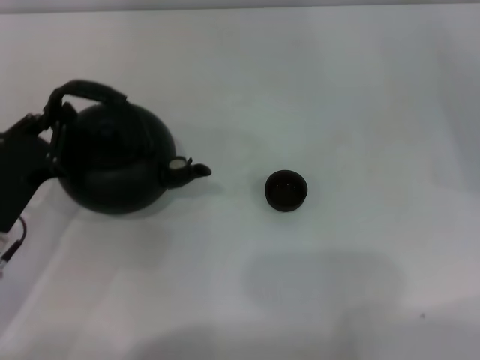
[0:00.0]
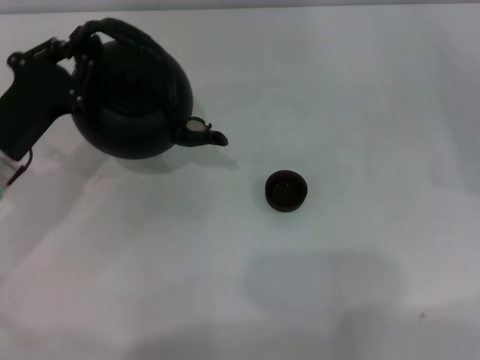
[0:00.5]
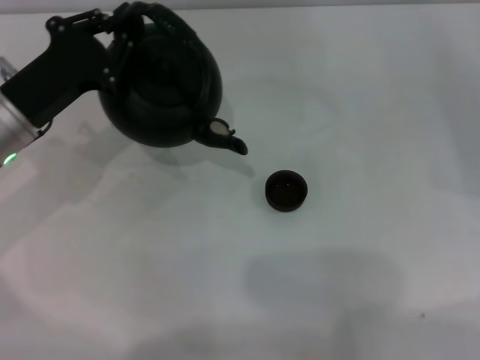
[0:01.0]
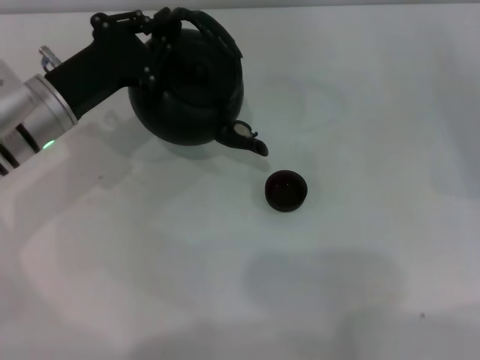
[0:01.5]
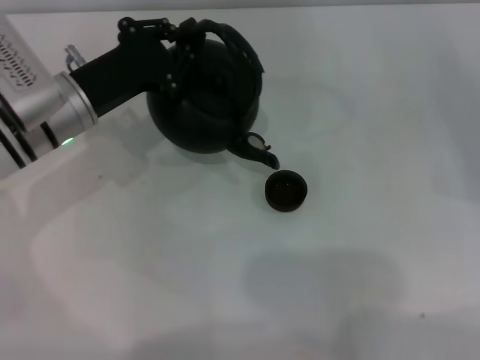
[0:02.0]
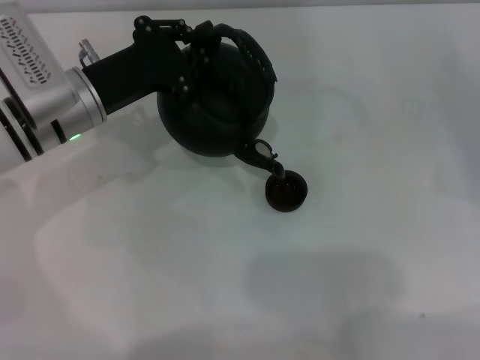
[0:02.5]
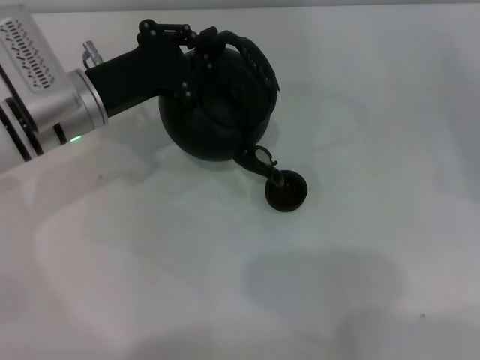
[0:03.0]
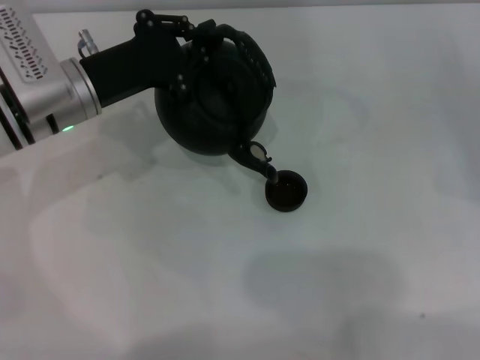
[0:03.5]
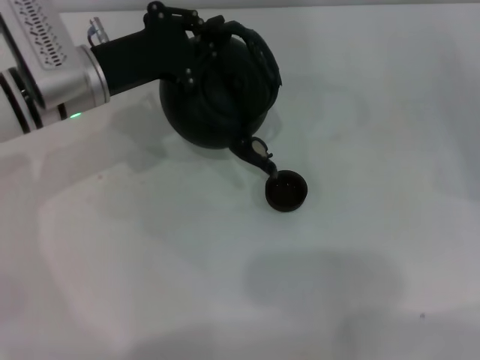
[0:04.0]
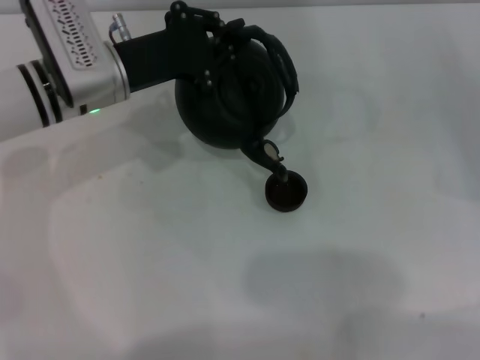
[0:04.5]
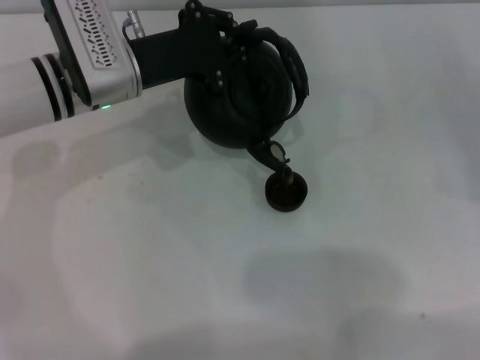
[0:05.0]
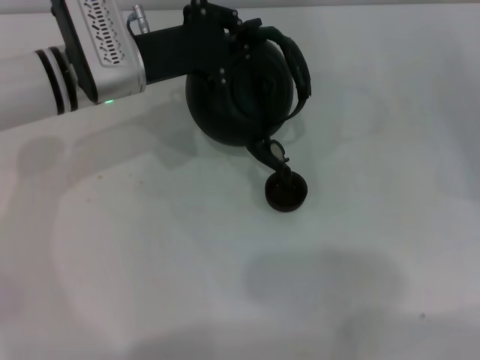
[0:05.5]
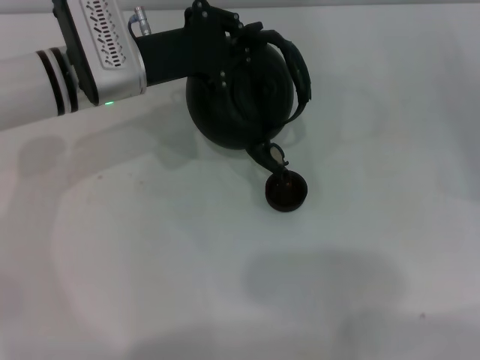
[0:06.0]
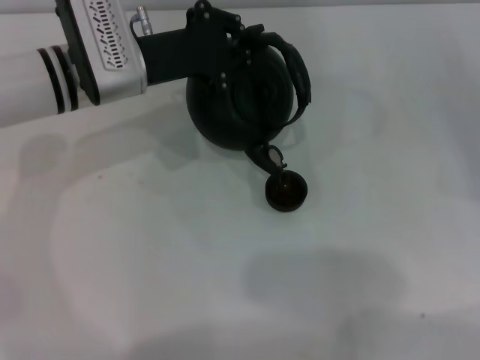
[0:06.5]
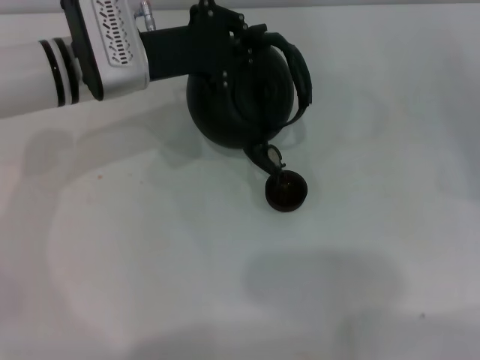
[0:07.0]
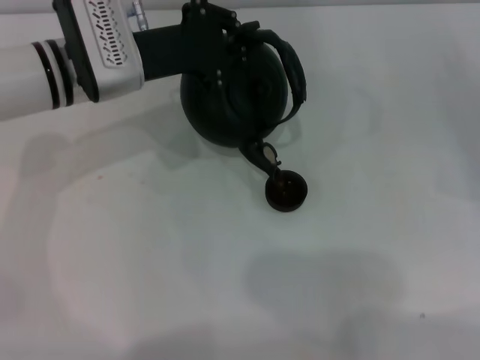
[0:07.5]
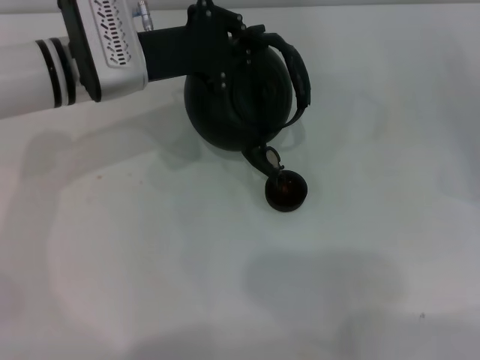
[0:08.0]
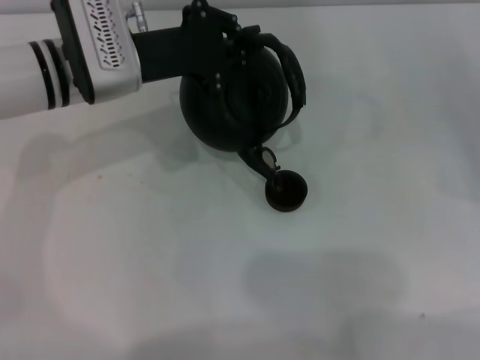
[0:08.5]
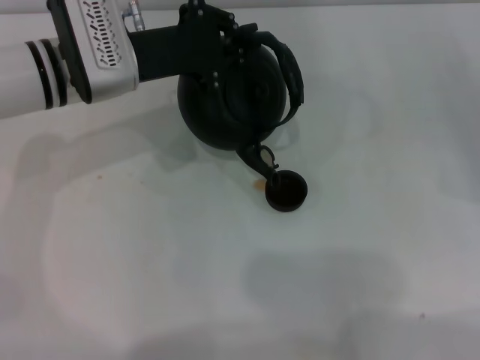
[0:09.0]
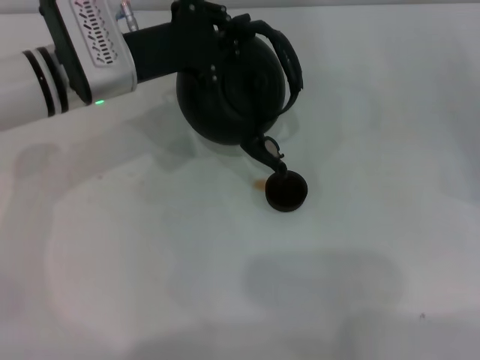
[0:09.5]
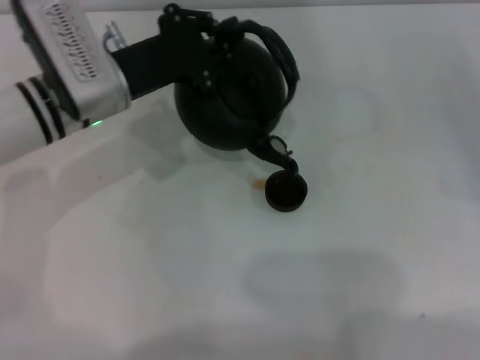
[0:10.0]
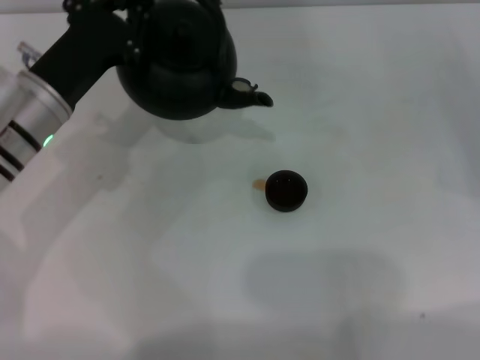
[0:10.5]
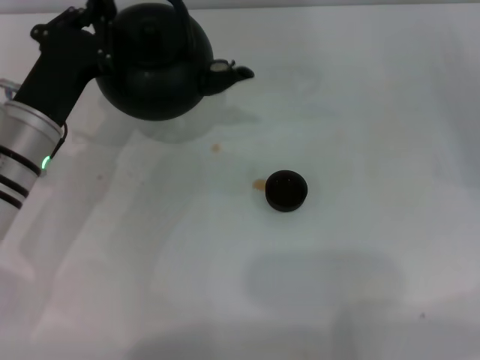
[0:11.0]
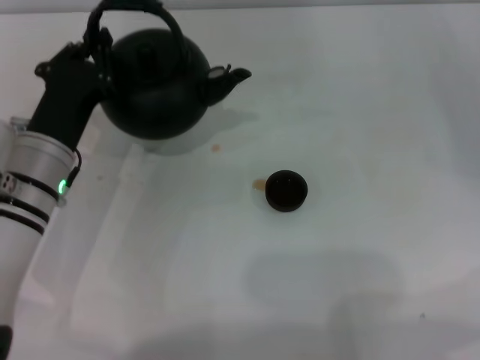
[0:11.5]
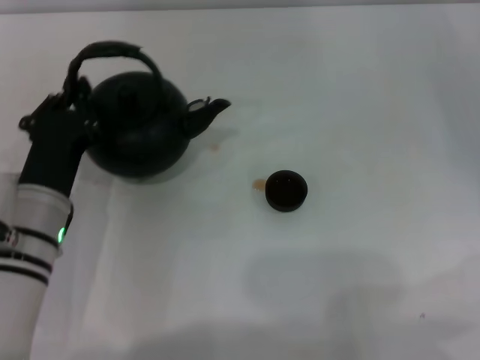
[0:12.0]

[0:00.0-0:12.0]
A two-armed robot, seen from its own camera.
Task of the whole recording: Grasp the handle of the teapot with one hand and pour tea into the teacup.
Step, 0:00.5 to 0:10.0: Pour tea into the teacup with the left gripper.
0:00.0 to 0:02.0: The left gripper moves forward, to the right and upward, some 15 cm.
0:02.0 to 0:04.0: The grippers move only a little.
0:04.0 to 0:06.0: The grippers move only a little.
0:06.0 to 0:08.0: Both grippers stay put.
0:08.0 to 0:10.0: The grippers stay close to where they were, moving slightly.
0:10.0 to 0:12.0: The right gripper moves roughly 5 cm. The left gripper heads backward and downward, covering approximately 15 cm.

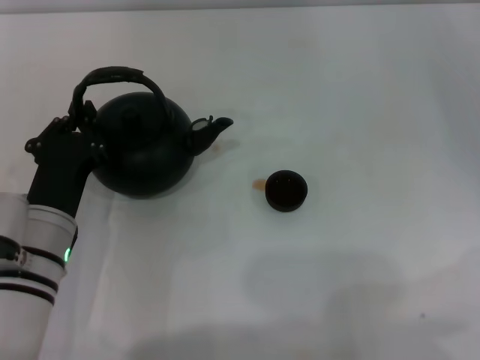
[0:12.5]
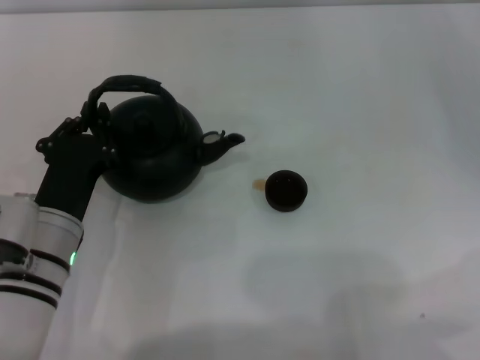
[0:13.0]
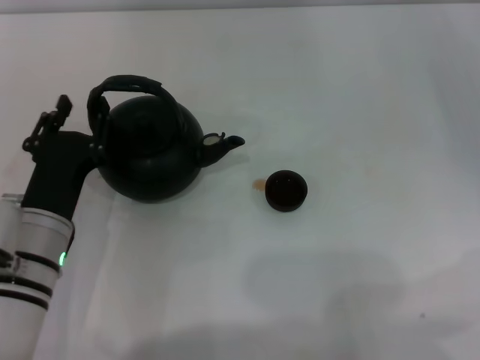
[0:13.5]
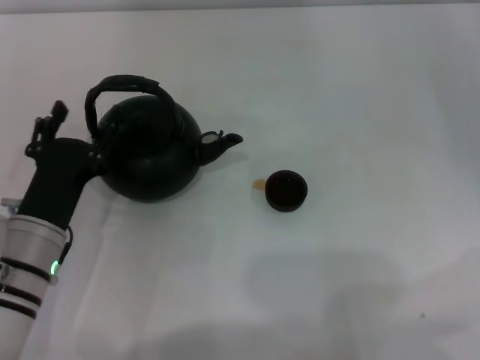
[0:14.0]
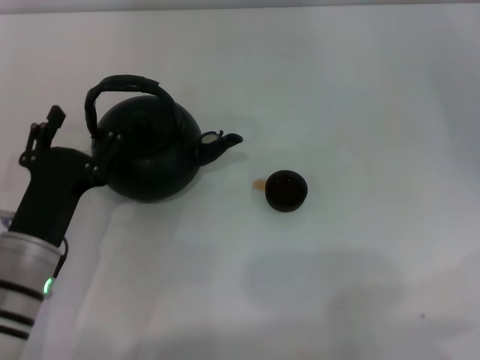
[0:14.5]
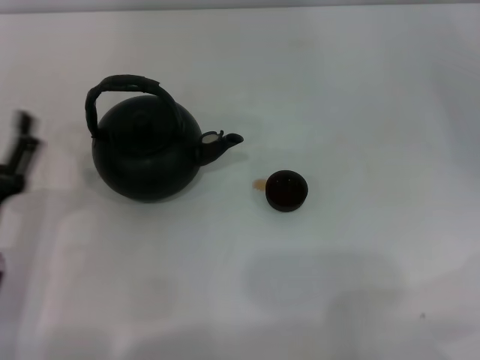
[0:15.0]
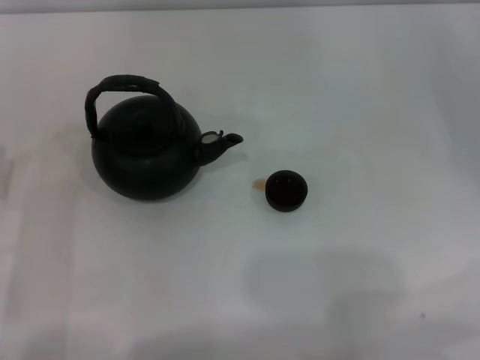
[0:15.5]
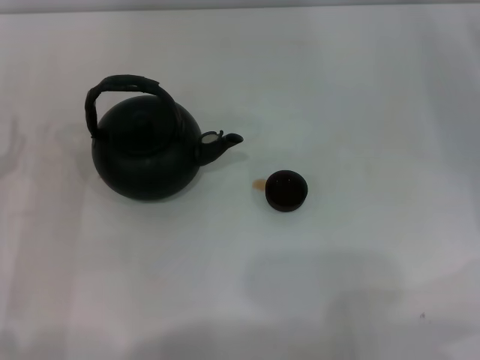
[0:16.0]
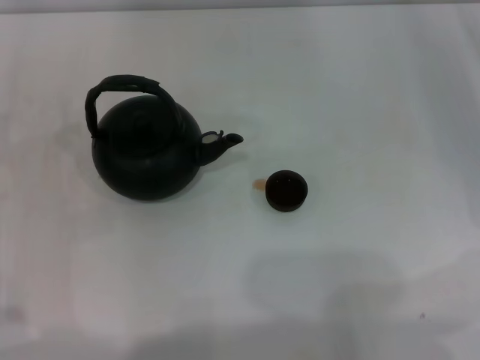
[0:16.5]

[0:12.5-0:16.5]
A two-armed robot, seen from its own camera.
Task of the whole recording: Grasp the handle of the teapot with one hand and pour tea into the teacup.
Step, 0:12.5 to 0:14.5: Put down the teapot with the left gripper.
0:12.5 to 0:14.5: The left gripper opens up.
0:14.5 to 0:16.5: The left gripper moves to the left and forward, some 10 cm.

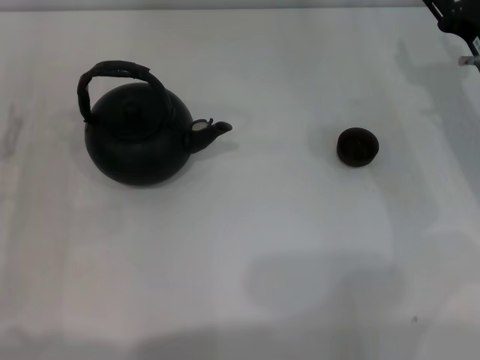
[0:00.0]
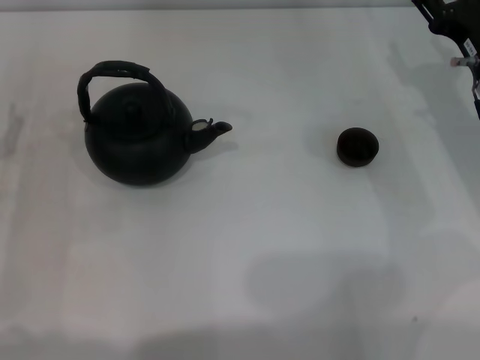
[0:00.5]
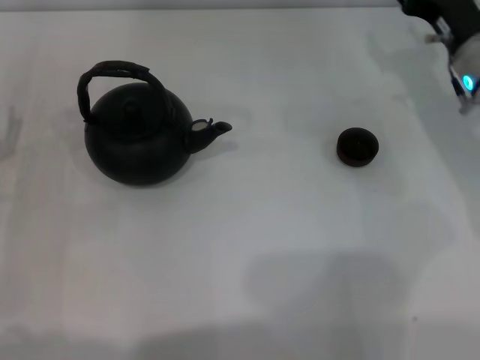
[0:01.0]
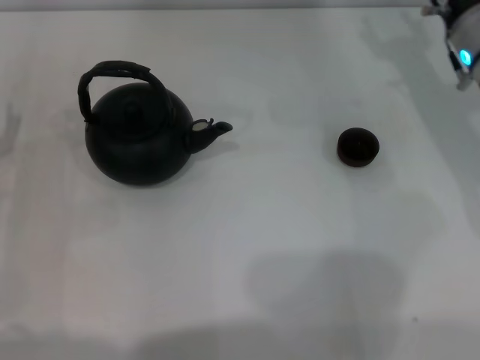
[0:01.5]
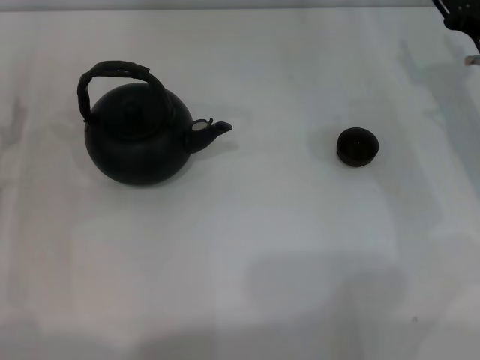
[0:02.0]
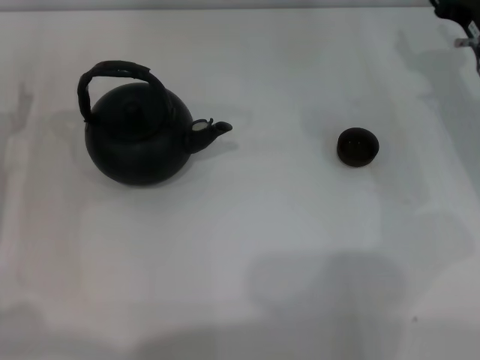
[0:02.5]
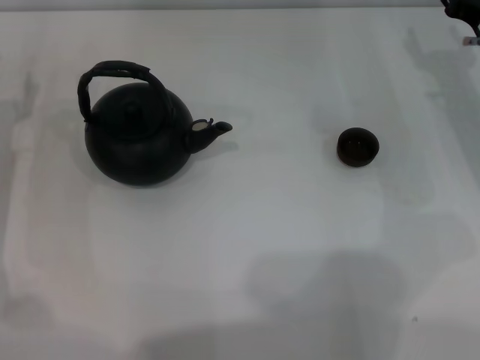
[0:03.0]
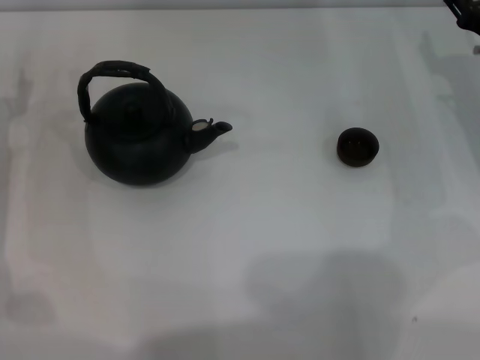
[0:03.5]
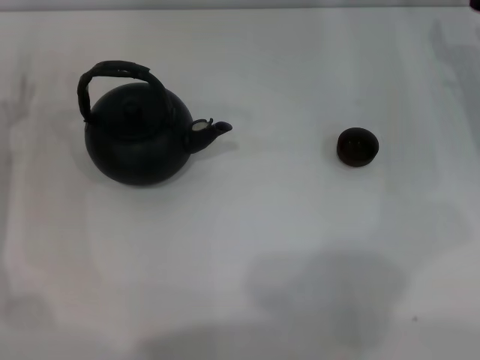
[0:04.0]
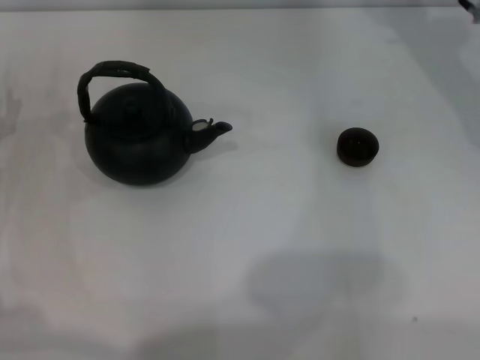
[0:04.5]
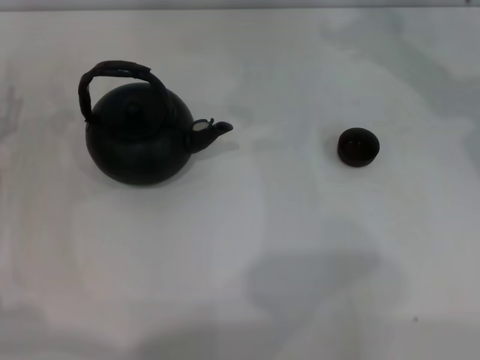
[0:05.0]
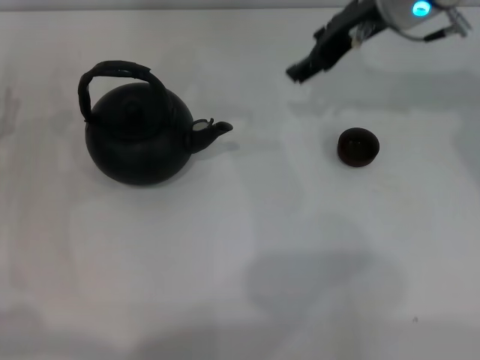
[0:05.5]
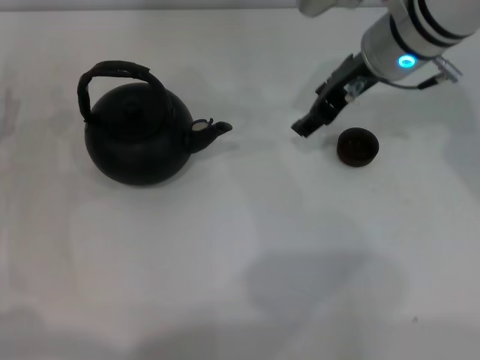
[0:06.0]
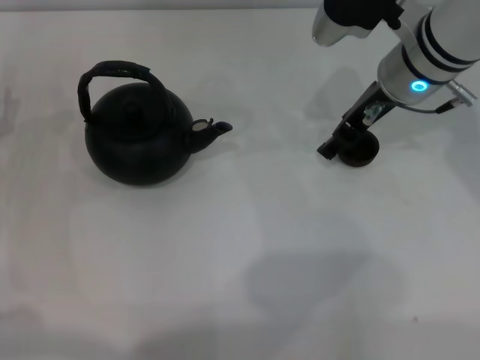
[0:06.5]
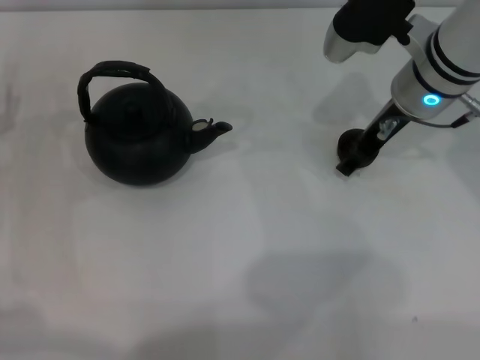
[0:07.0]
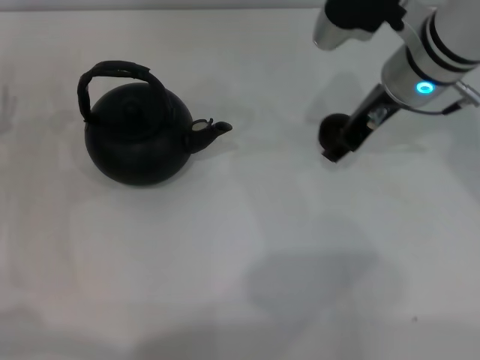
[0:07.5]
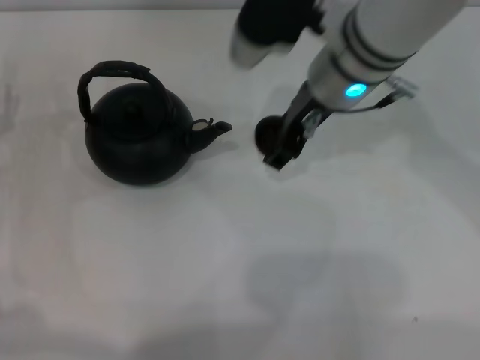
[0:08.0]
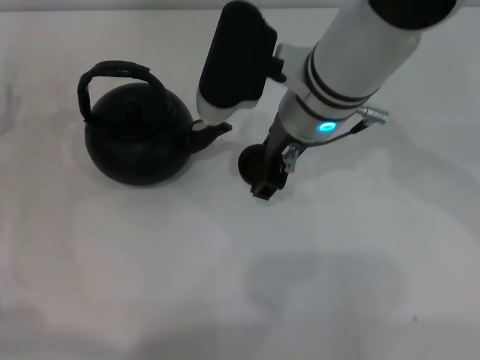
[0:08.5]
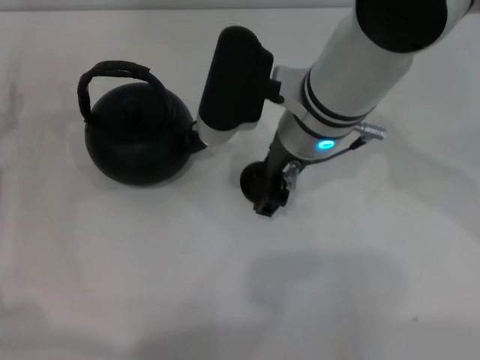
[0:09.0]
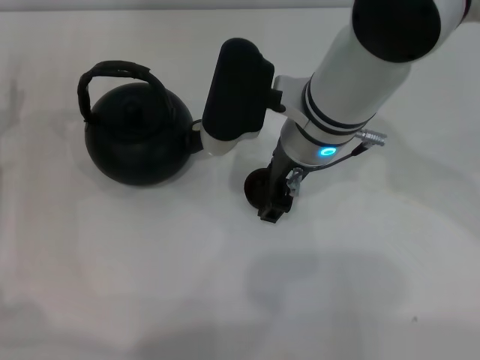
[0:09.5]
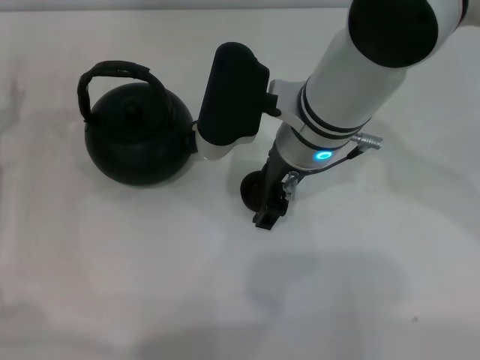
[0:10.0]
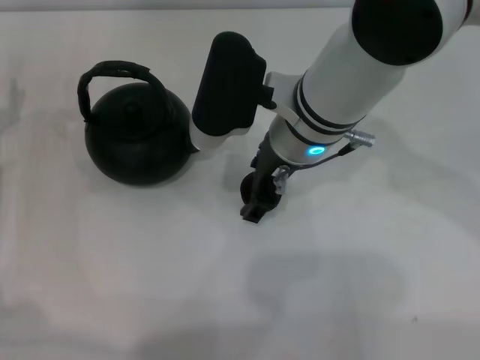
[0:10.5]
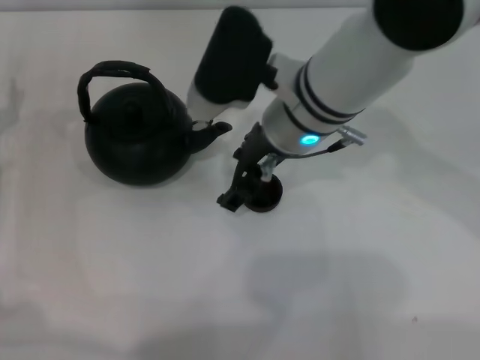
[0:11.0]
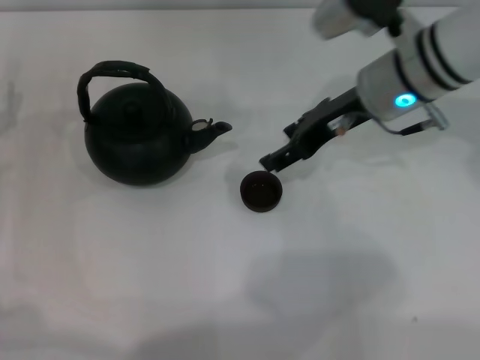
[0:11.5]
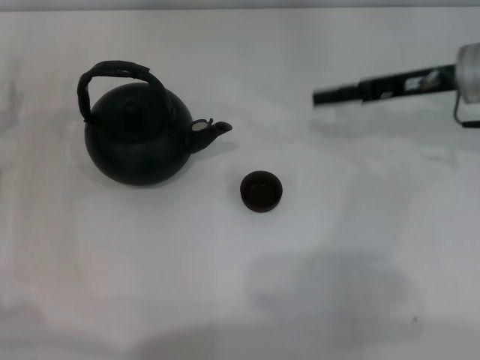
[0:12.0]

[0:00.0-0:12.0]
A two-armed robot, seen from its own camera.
Task of the whole recording: Grasp the handle of the teapot with one hand and pour tea into the teacup.
Step, 0:00.0 to 0:07.0: Pick up the teacup with the right gripper.
Step, 0:07.5 to 0:11.5: Place the teacup in the center of view with the right gripper.
0:02.0 to 0:04.0: The right gripper changes place by about 5 cm.
0:04.0 to 0:06.0: The right gripper travels to the left and upward by approximately 20 cm.
0:06.0 to 0:08.0: The right gripper goes roughly 5 cm to the left, and closes up.
0:08.0 to 0:10.0: The right gripper changes place by about 5 cm.
0:10.0 to 0:12.0: The right gripper moves to the right, about 20 cm, and opens its fingers.
